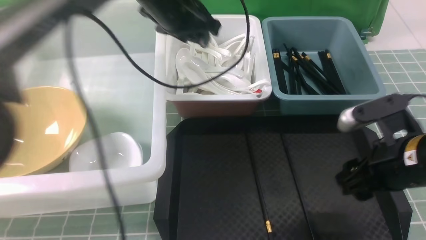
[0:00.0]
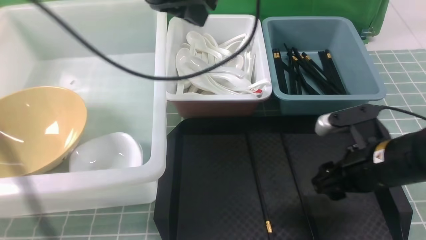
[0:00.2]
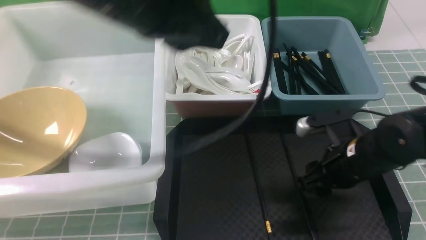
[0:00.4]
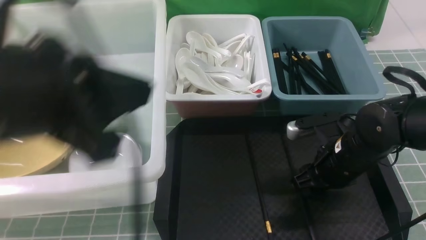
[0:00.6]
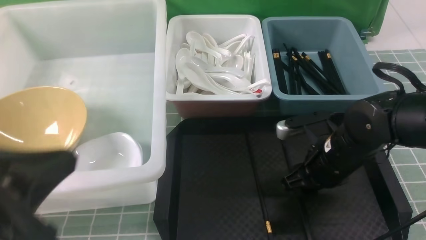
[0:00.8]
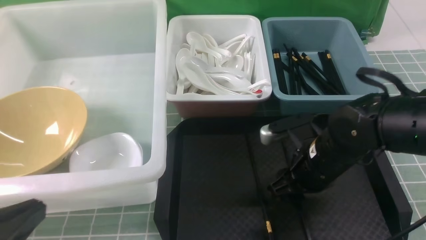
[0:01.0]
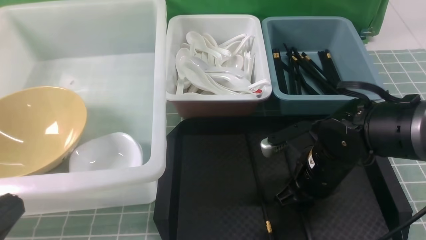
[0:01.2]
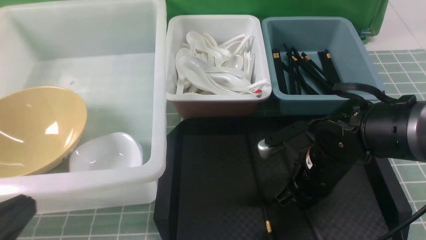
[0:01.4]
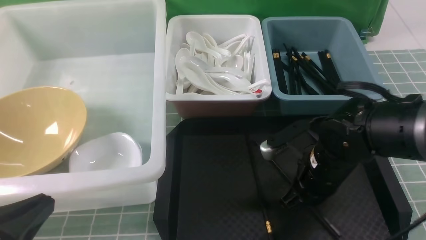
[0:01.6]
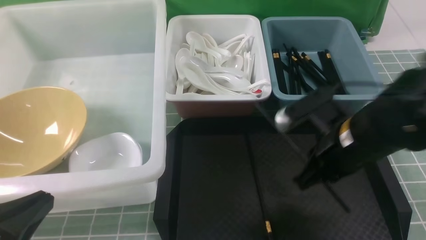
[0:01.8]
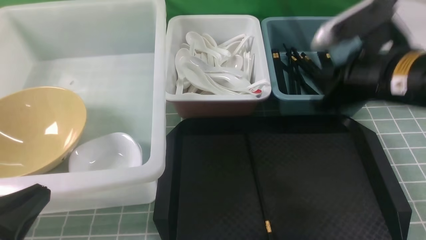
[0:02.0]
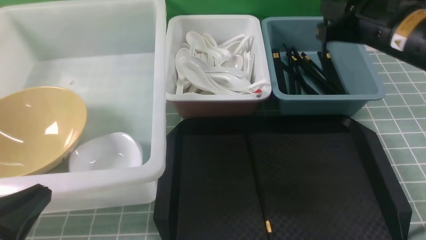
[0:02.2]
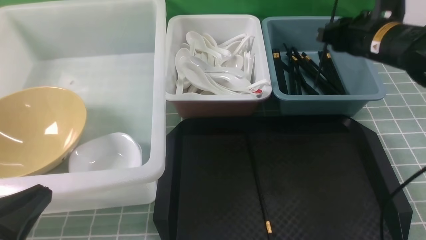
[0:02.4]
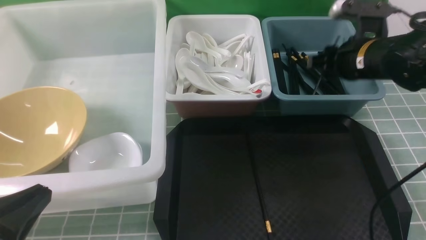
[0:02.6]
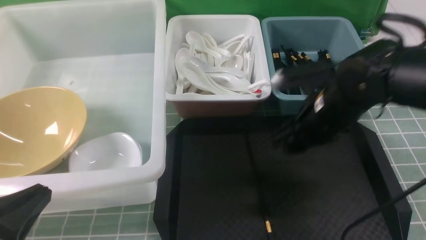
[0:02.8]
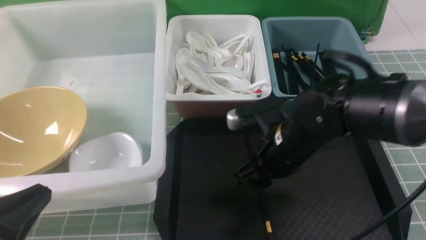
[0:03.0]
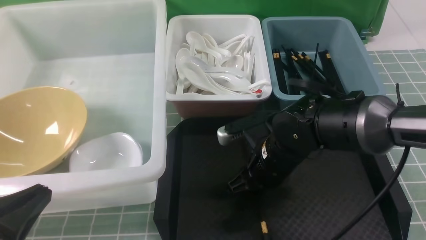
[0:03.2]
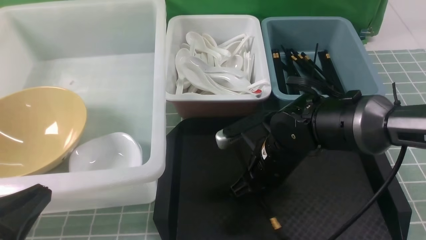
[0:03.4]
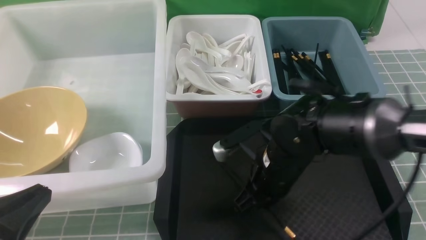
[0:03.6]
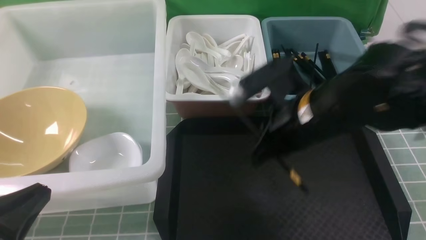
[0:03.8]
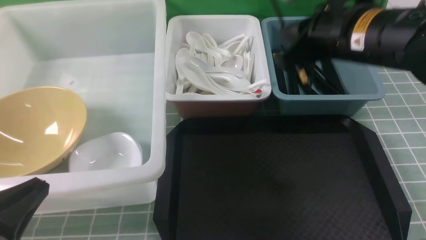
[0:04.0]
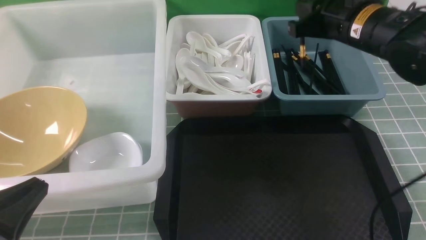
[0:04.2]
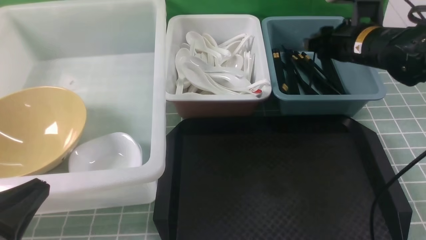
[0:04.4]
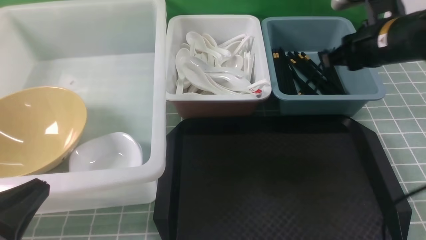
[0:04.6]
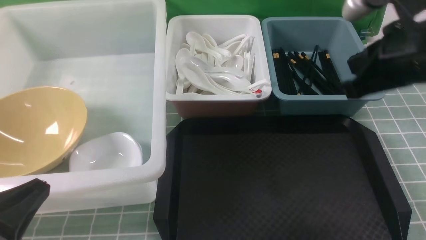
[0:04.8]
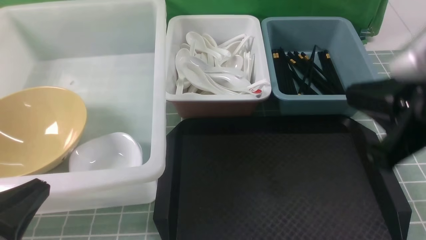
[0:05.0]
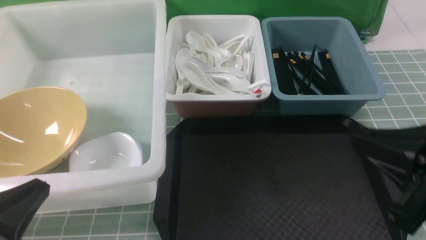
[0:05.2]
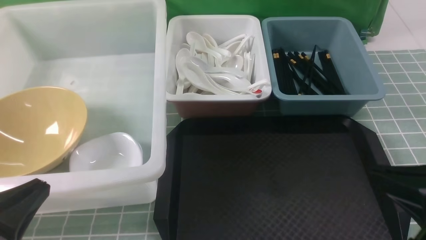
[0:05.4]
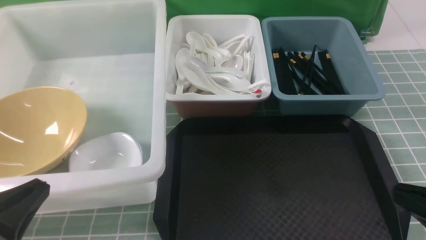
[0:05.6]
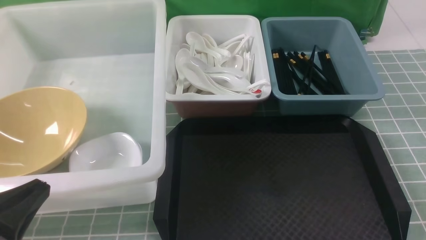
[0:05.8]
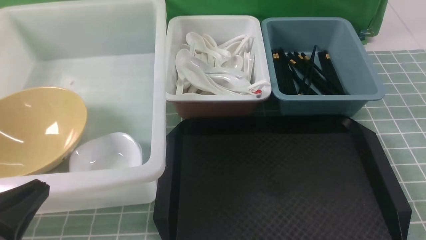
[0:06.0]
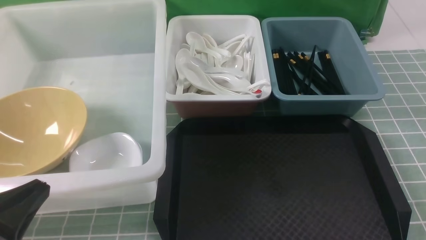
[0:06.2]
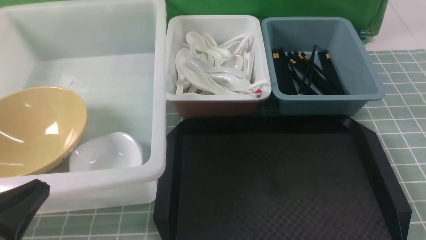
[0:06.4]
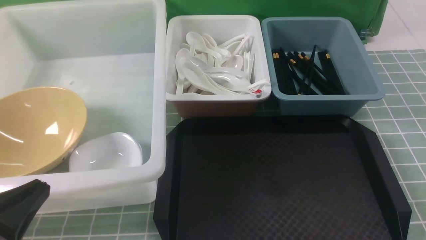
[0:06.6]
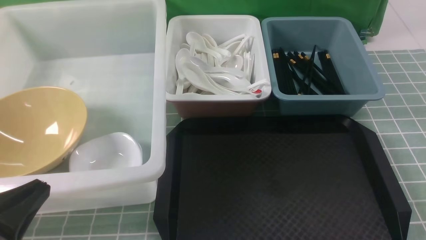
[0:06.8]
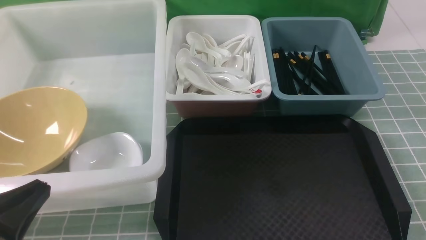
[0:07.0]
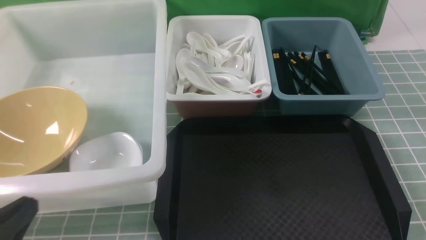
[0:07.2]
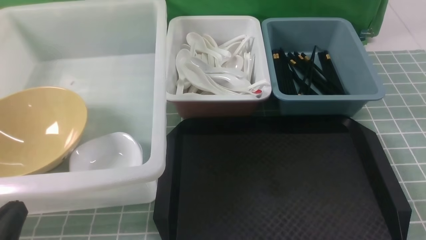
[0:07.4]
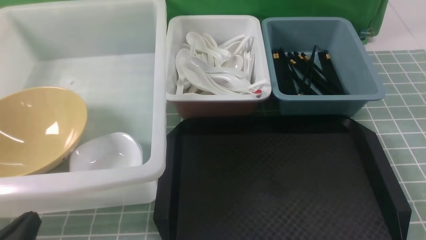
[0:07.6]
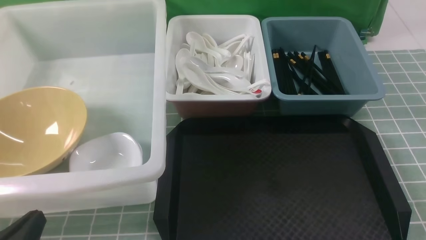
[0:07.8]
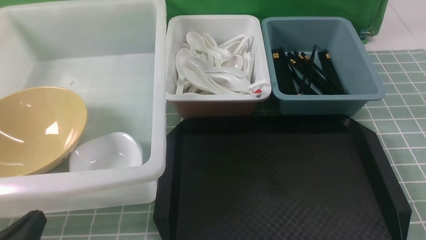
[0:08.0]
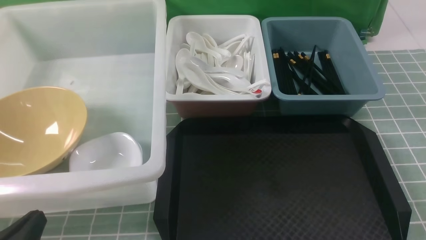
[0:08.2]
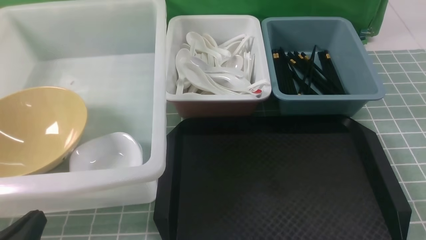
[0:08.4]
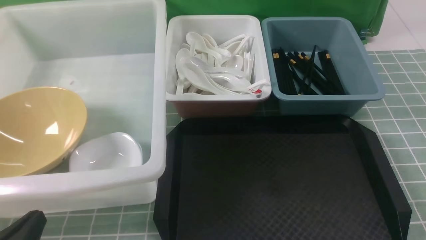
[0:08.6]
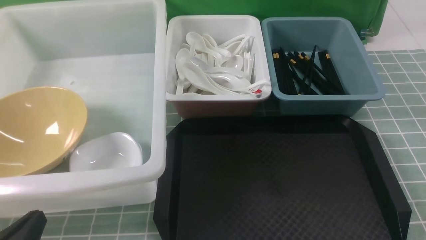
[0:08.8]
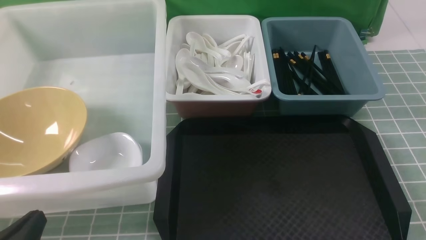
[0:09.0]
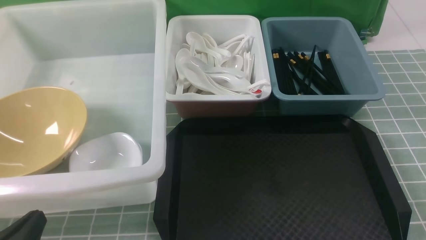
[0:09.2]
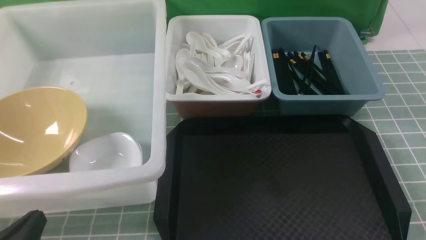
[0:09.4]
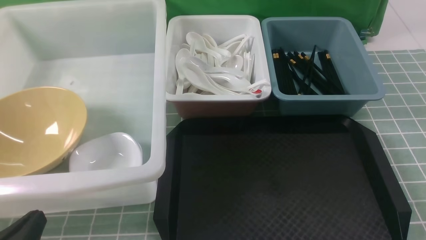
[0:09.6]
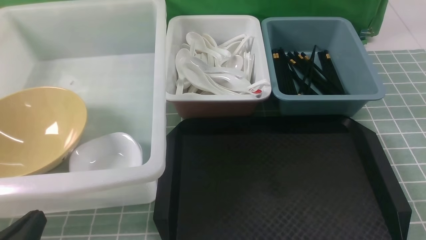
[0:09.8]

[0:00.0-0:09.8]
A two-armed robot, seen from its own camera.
Task of the whole recording: on blue table put chopsticks spoon bowls plates into blue grey white boxes.
Step, 0:00.2 to 0:01.6: use the right arm to grab a chopstick.
Step, 0:01.8 to 0:02.6: use the right arm to put a chopstick into the small storage box on the right.
Step, 0:02.8 to 0:03.6: use the right arm to grab a chopstick.
Step, 0:03.8 to 0:04.4: use the right arm to put a chopstick into the small storage box on the right.
0:00.0 to 0:01.4: The left gripper heads backward and to the left, covering roughly 40 cm, and closes. The right gripper shifts some 10 cm to the left and downward, and closes its fingers.
0:01.4 to 0:02.8: The right gripper heads forward and upward, covering some 10 cm, and opens.
0:02.8 to 0:04.2: The right gripper goes about 10 cm upward and forward, and closes its fingers.
0:04.2 to 0:05.6: The right gripper is displaced backward by approximately 30 cm.
0:05.6 to 0:07.0: The right gripper shifts some 10 cm downward.
0:07.0 to 0:08.4: The left gripper goes about 5 cm downward.
0:08.4 to 0:09.8: The two grippers keep their place.

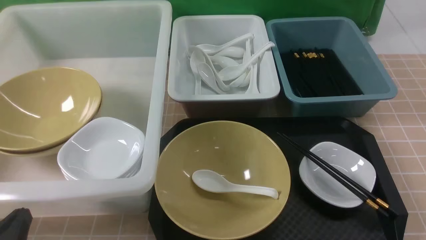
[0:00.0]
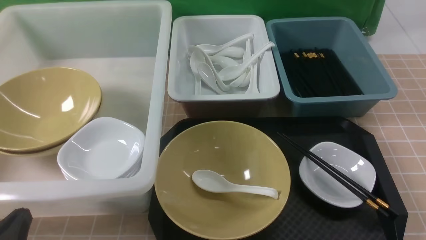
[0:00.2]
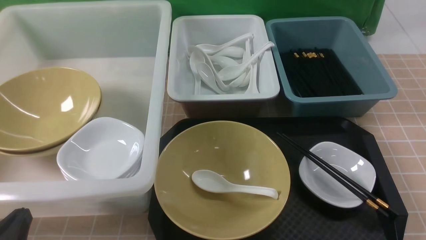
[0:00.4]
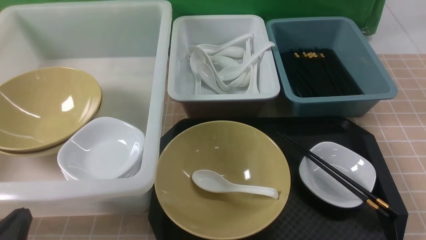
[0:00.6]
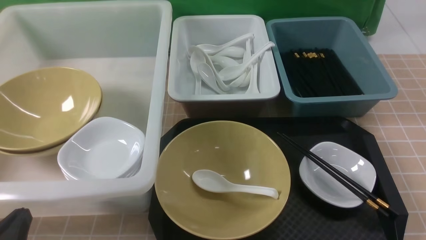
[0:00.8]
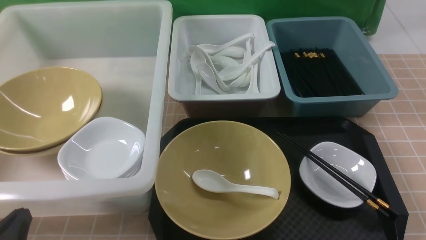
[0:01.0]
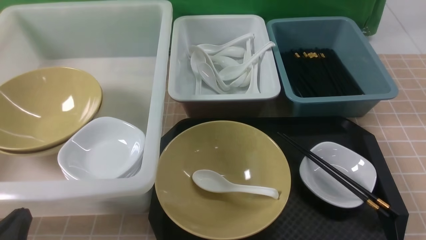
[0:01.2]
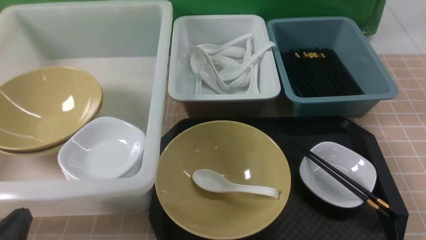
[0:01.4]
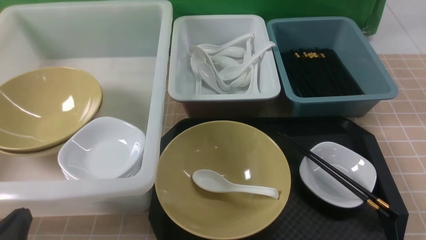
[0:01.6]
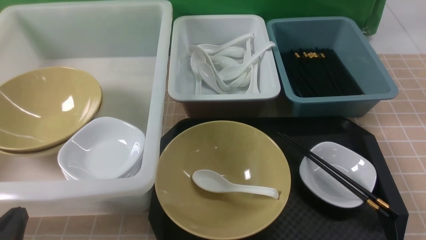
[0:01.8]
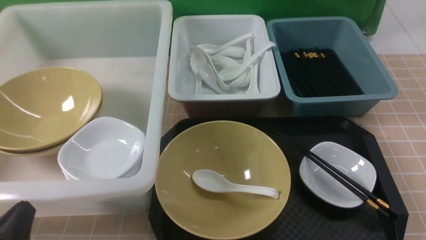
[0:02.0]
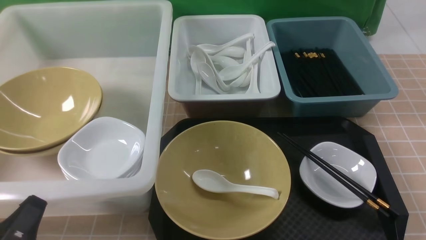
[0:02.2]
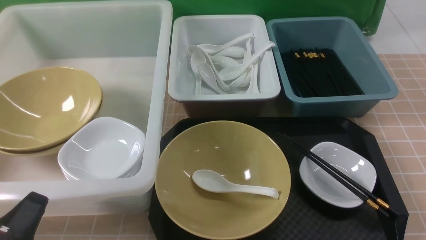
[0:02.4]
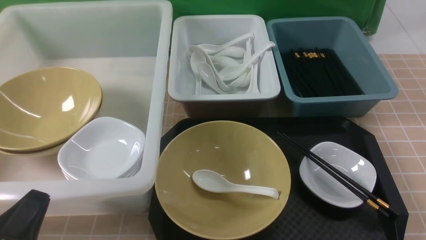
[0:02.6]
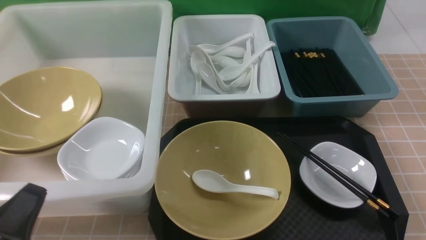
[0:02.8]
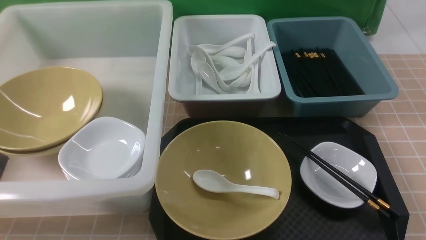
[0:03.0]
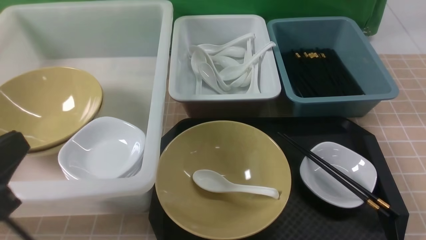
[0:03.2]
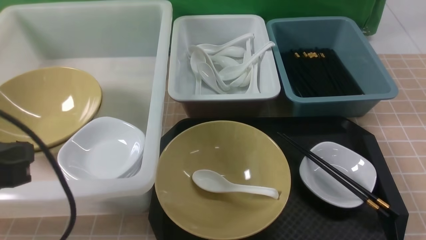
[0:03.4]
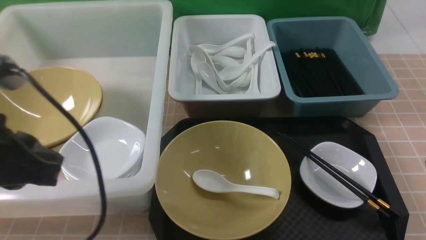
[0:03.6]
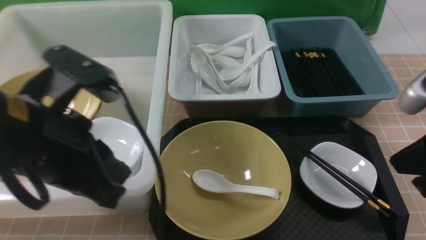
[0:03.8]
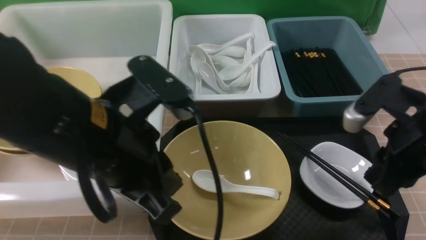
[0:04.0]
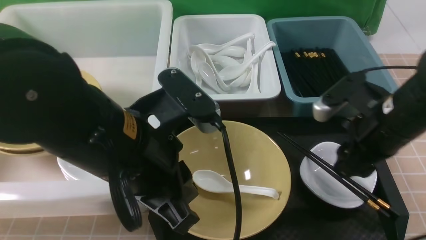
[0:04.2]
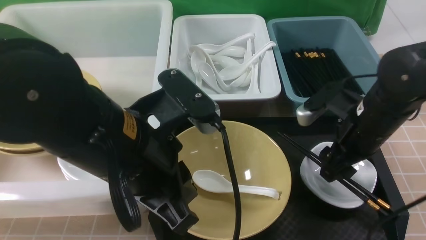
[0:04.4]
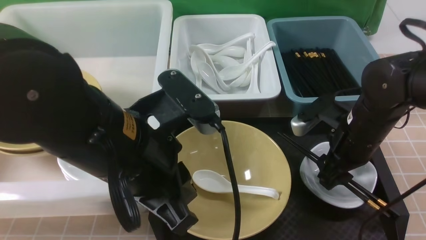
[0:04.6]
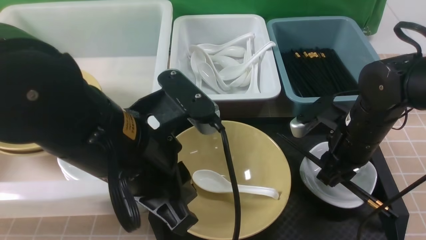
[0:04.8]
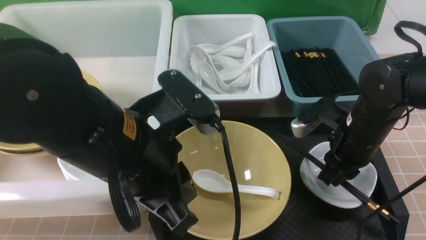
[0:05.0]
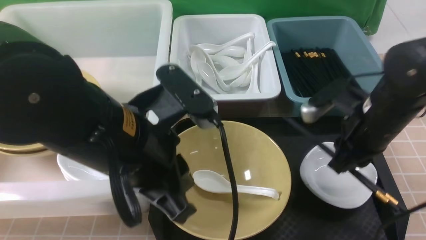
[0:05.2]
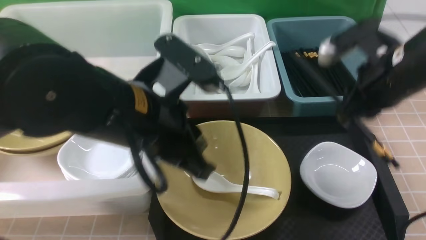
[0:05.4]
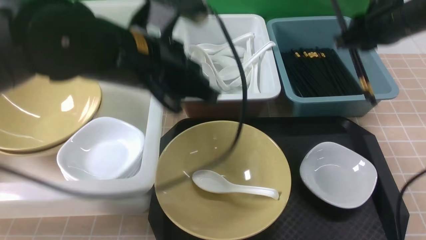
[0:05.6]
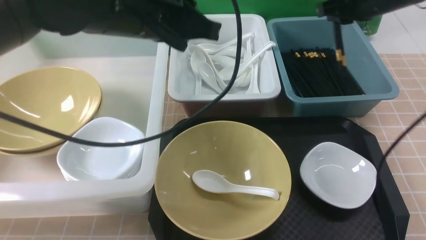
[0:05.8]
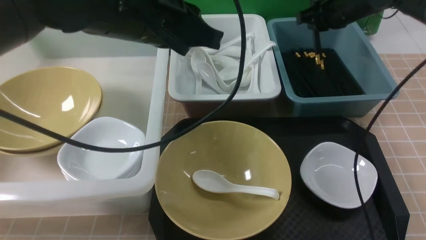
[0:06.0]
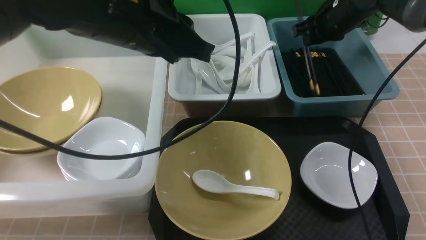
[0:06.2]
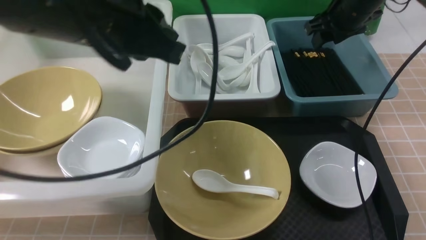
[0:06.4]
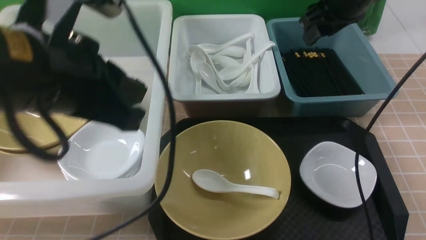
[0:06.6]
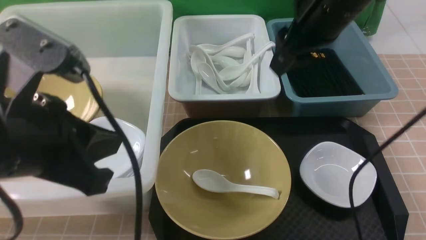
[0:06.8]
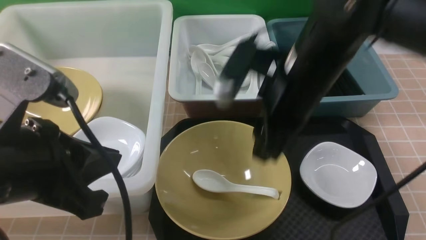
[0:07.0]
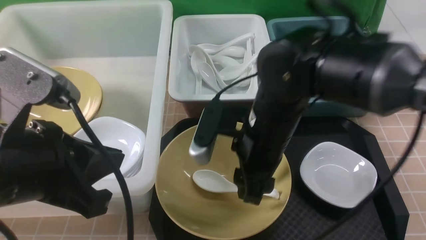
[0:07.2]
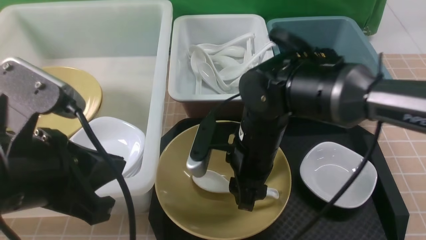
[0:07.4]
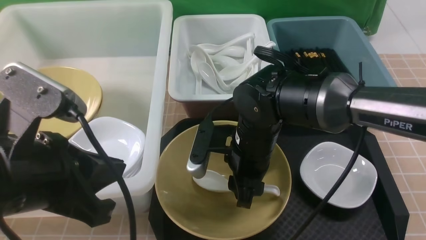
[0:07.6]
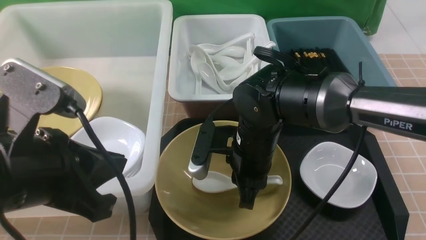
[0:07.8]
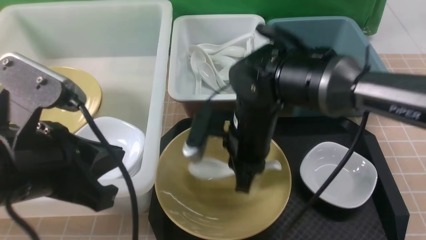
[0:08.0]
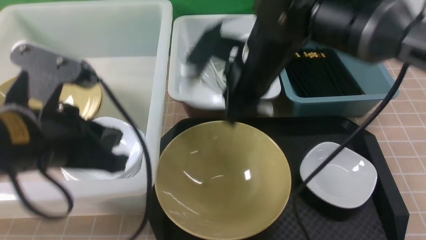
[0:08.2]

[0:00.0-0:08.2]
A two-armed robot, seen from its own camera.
Task of the whole recording: on brown table put chopsticks spoon bowls plates into blue grey white boxes.
Step, 0:00.0 to 0:05.4: use the right arm to grab the chopsticks.
Step, 0:05.6 to 0:06.4: use the right arm to put the chopsticks into the small storage box on the right.
Step, 0:06.6 to 0:08.0: use the right arm to grab the soup spoon in the middle.
0:00.0 to 0:01.6: The two grippers keep their place.
0:01.6 to 0:03.2: The left gripper is displaced upward by approximately 15 cm.
0:03.2 to 0:05.0: The left gripper moves to the right and forward, some 20 cm. Meanwhile the right gripper moves forward, some 25 cm, and opens, then closes once more.
0:05.0 to 0:06.6: The left gripper goes about 10 cm to the left and upward, and goes forward and returns, approximately 10 cm each way; the right gripper goes roughly 20 cm upward and forward, and opens.
0:06.6 to 0:08.2: The right gripper goes approximately 15 cm to the left, backward and downward, and closes up.
